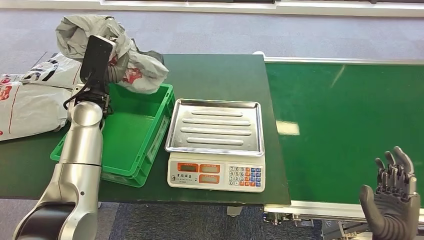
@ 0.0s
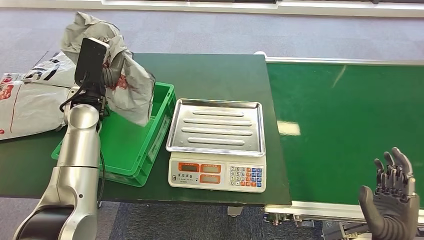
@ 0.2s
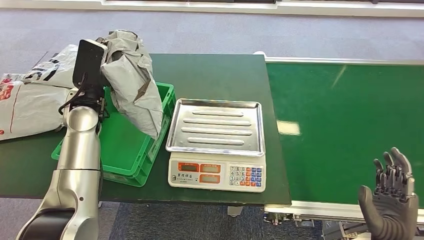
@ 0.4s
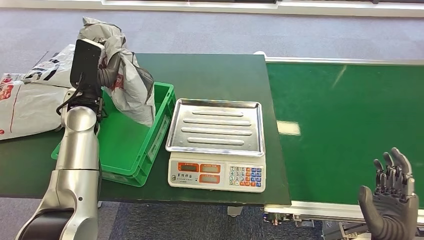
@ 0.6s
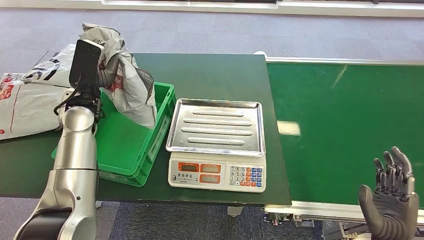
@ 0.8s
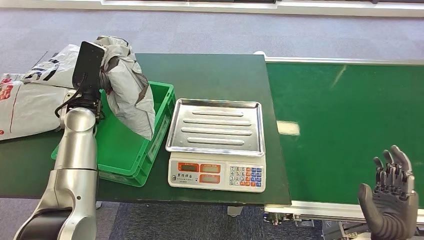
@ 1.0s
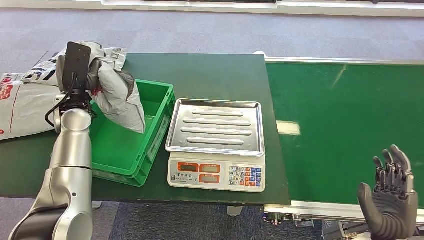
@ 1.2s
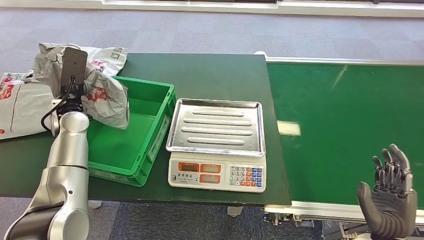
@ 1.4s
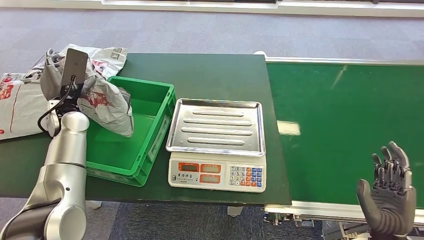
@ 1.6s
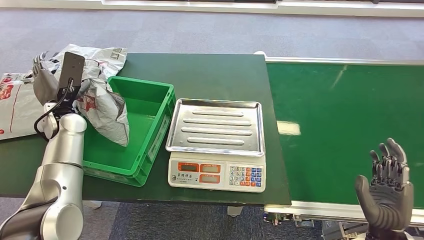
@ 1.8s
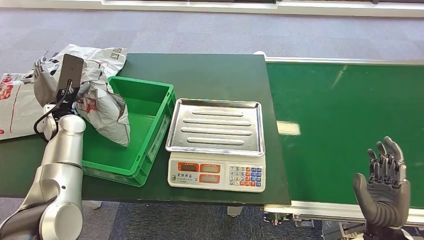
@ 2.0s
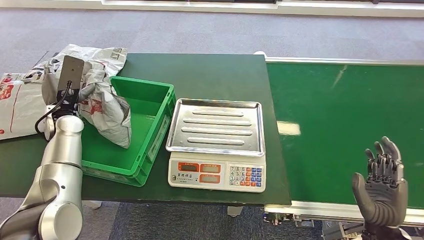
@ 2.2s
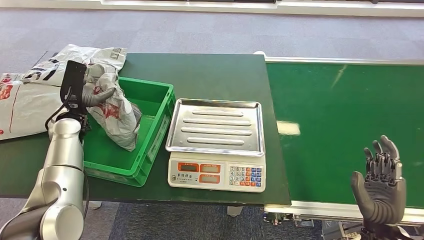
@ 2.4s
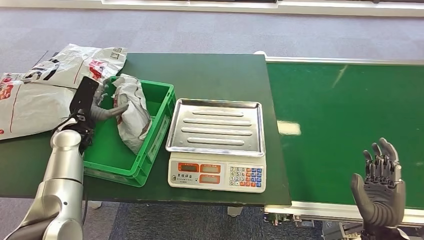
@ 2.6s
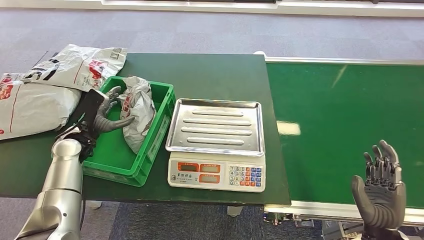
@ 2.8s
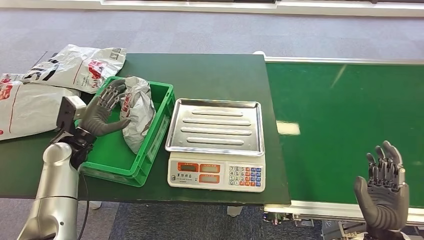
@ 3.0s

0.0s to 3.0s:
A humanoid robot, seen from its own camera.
Step, 0.2s to 3.0s: Place the package into the parcel locker.
0.0s to 1.6s: The left hand moves to the left, roughly 10 cm.
1.6s to 3.0s: The left hand shifts roughly 10 cm downward and backward.
